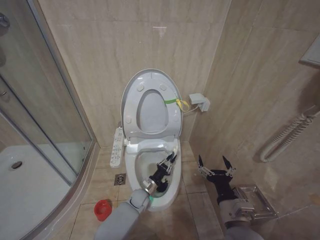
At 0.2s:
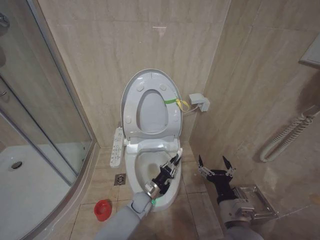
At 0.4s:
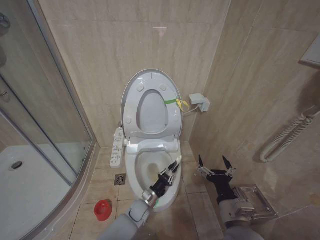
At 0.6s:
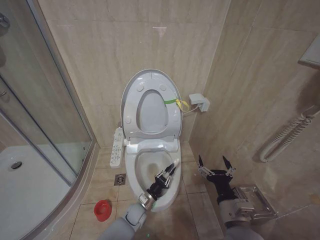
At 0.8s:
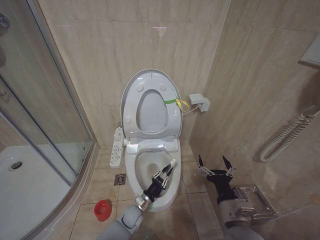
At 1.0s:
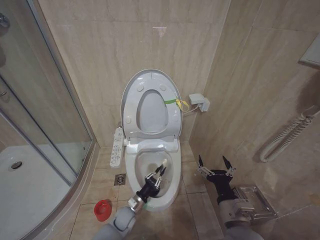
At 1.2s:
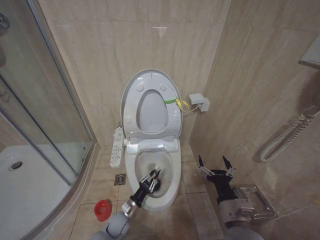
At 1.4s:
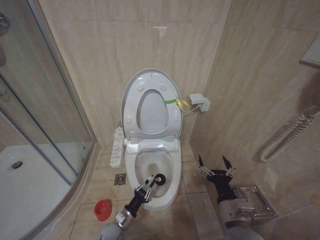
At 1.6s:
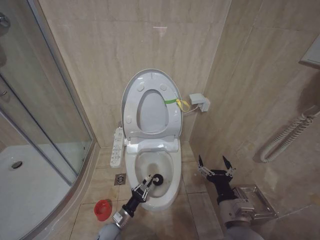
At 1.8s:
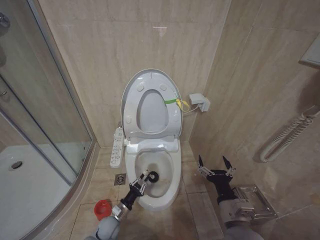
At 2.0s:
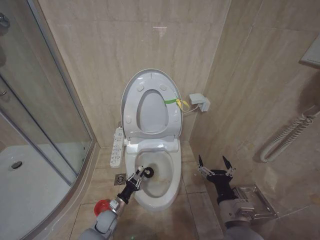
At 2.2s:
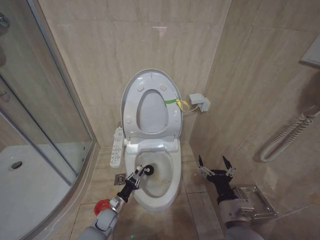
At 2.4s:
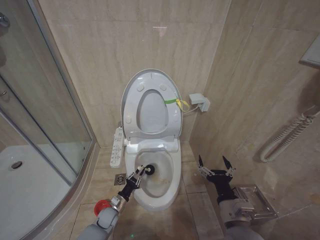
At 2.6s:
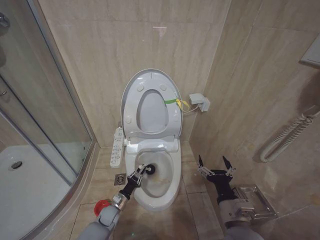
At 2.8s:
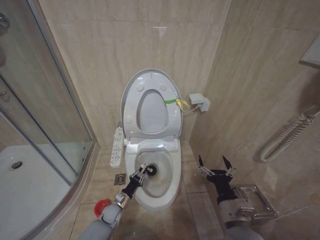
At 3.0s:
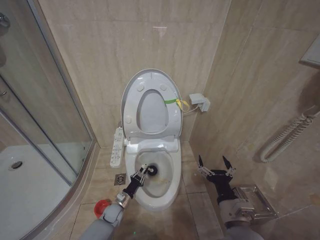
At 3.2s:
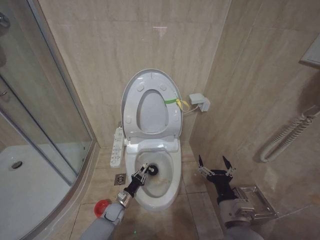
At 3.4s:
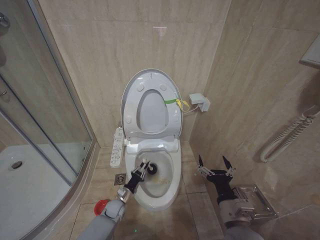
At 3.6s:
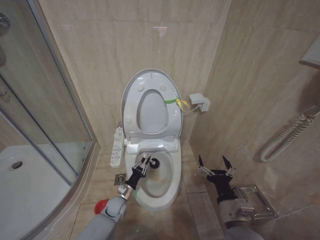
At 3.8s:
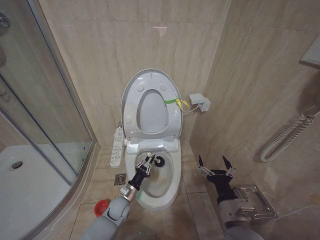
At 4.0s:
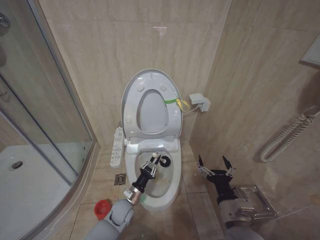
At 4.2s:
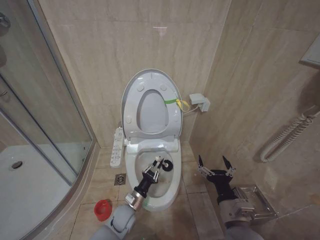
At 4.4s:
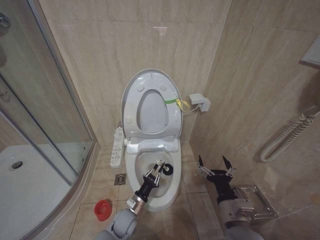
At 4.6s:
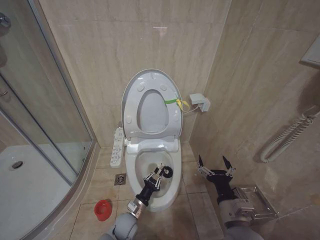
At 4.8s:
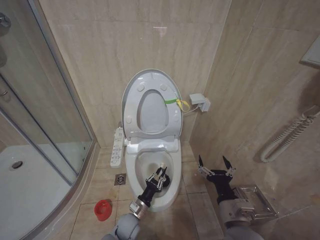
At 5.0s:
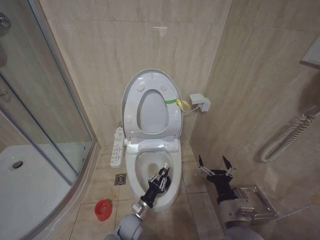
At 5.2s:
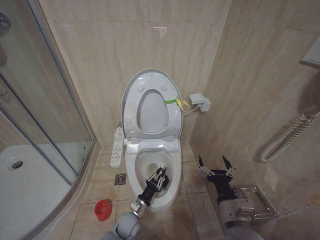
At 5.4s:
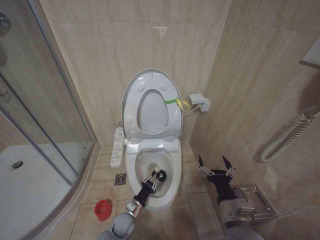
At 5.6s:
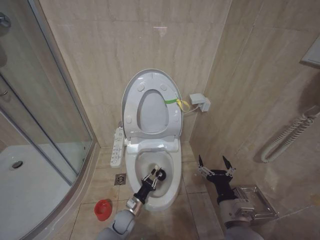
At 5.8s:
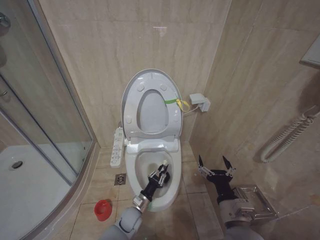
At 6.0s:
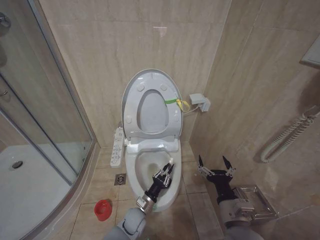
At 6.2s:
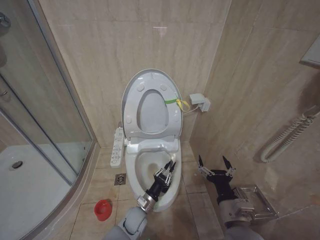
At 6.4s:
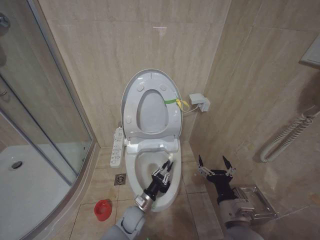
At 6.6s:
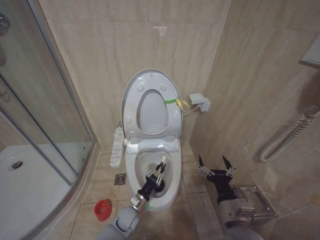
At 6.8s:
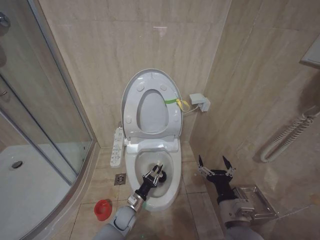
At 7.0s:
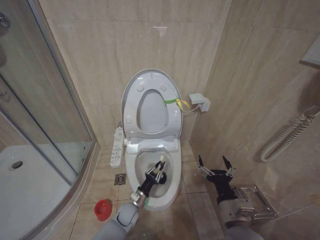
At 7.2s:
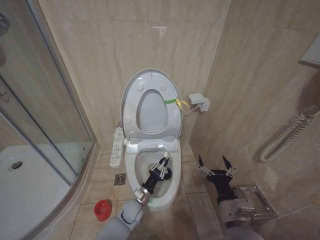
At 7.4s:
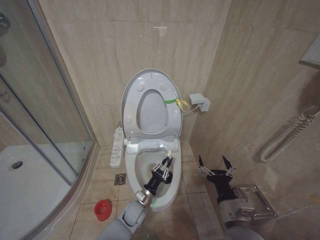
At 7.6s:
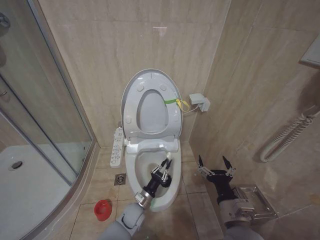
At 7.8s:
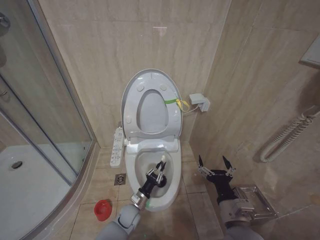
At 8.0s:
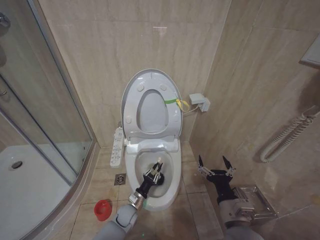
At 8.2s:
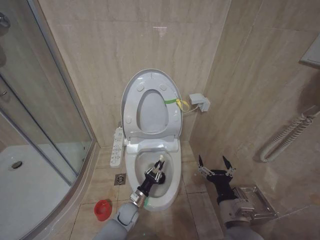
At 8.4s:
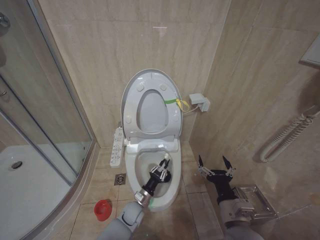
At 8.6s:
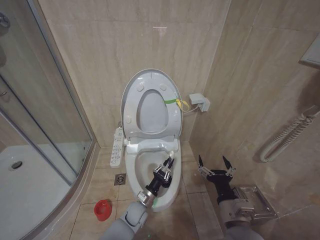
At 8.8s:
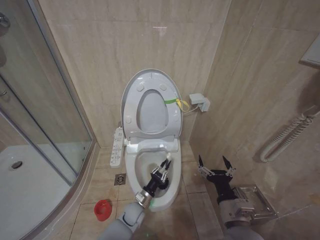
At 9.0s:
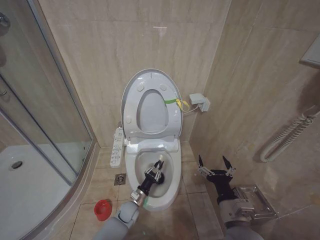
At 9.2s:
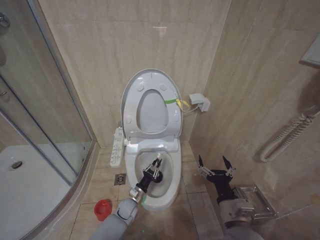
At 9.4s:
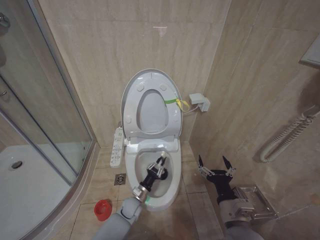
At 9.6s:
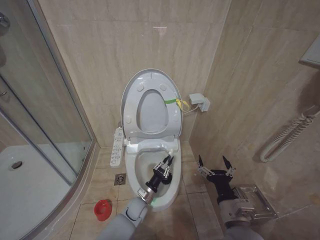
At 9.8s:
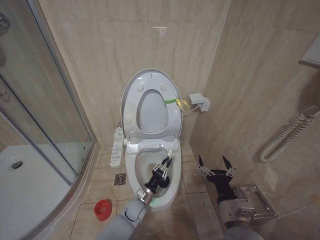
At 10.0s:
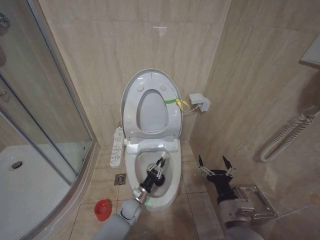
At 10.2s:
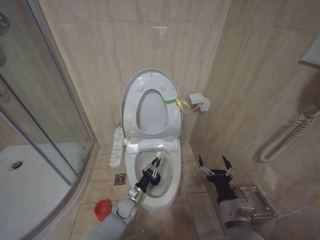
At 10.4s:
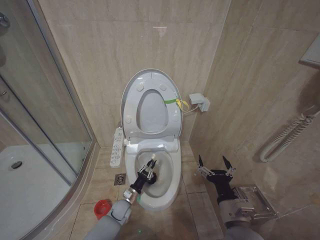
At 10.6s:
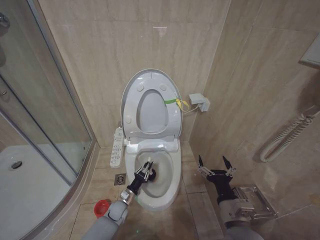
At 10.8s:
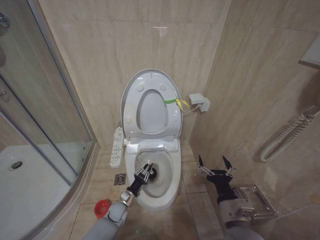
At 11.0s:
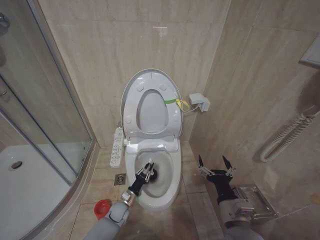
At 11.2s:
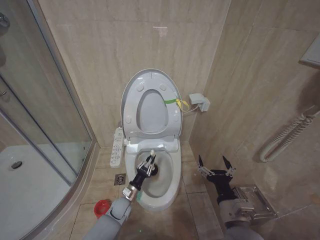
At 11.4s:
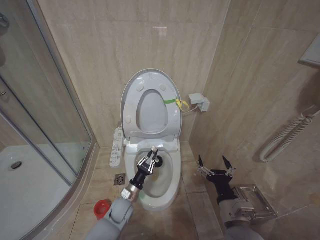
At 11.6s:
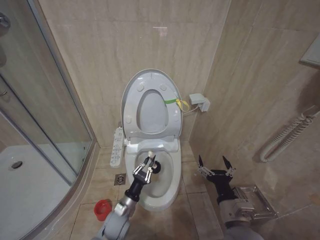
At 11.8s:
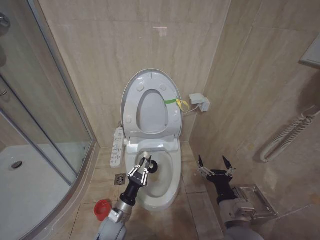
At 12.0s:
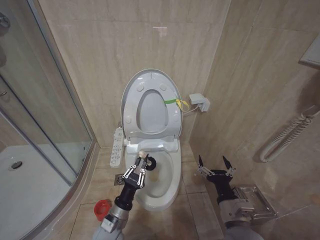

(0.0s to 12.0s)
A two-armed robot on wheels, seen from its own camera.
Task of the whole recording: Open the toilet lid, clean the toilet bowl with a toilet brush, close the toilet lid, and flush.
0.0s - 1.6s: The left gripper moves backward and to the left, approximately 15 cm.
1.6s - 3.0s: The left gripper shifts approximately 10 cm forward.
3.0s - 4.4s: The left gripper is displaced upward, to the right and backward by approximately 15 cm.
6.0s - 7.6s: The grippers move only a little.
7.6s - 9.0s: The left gripper changes place by about 5 cm.
9.0s - 10.4s: The grippers move only a little.
10.4s - 12.0s: The left gripper heads upward and backward, covering roughly 15 cm.

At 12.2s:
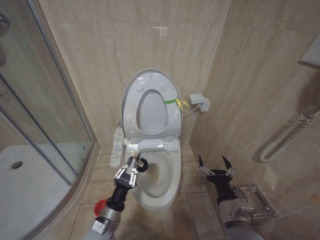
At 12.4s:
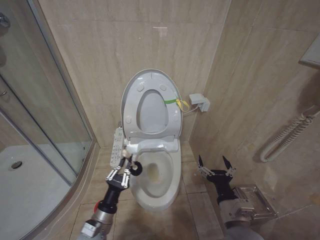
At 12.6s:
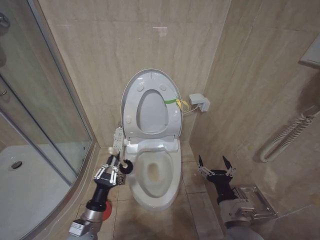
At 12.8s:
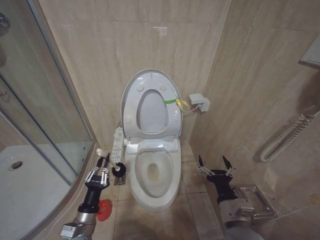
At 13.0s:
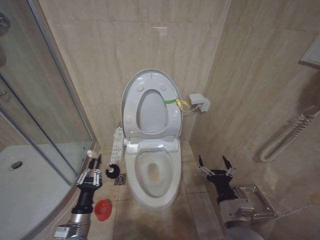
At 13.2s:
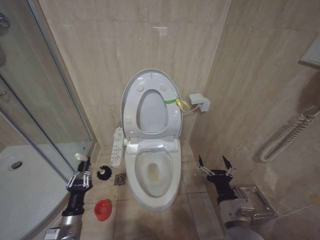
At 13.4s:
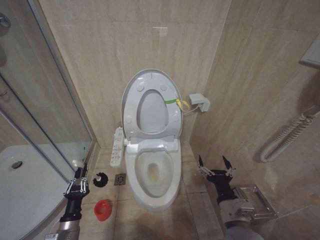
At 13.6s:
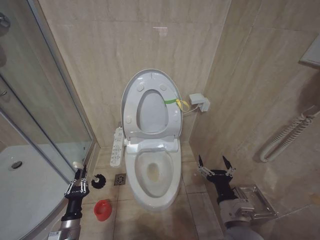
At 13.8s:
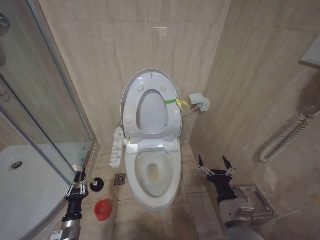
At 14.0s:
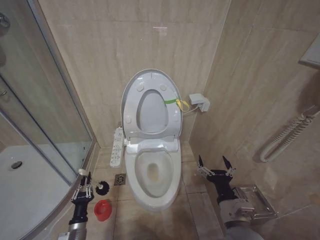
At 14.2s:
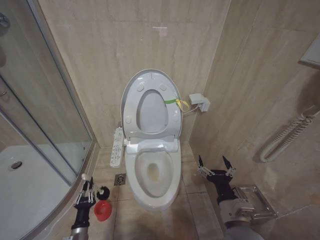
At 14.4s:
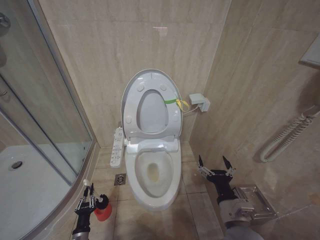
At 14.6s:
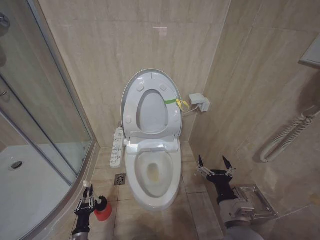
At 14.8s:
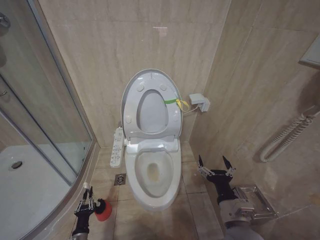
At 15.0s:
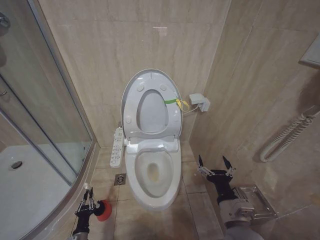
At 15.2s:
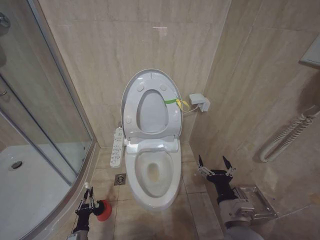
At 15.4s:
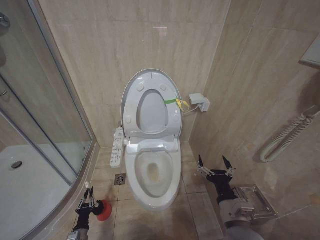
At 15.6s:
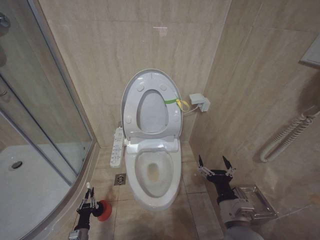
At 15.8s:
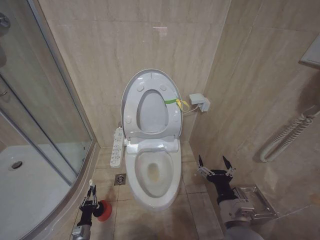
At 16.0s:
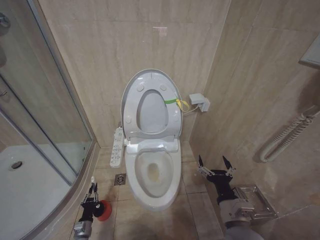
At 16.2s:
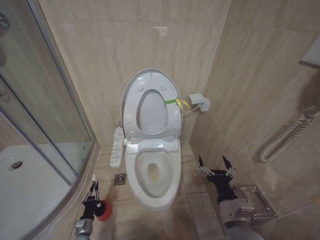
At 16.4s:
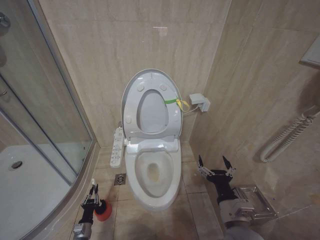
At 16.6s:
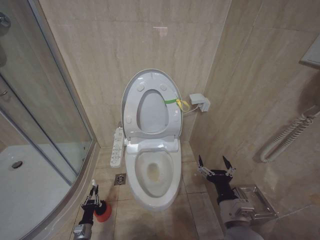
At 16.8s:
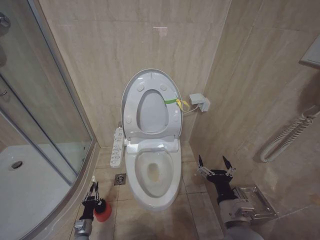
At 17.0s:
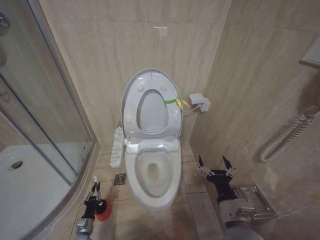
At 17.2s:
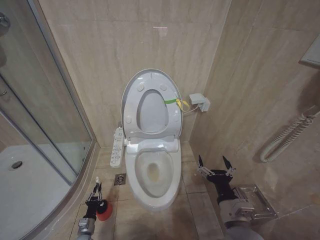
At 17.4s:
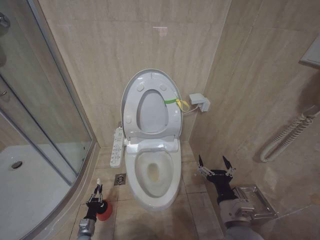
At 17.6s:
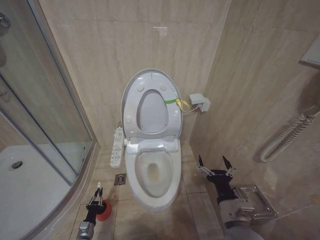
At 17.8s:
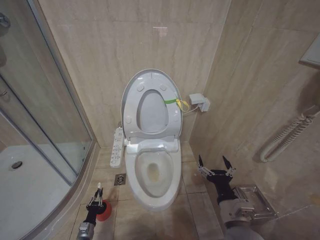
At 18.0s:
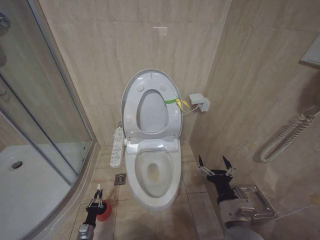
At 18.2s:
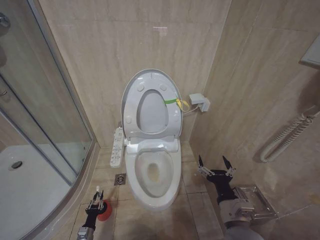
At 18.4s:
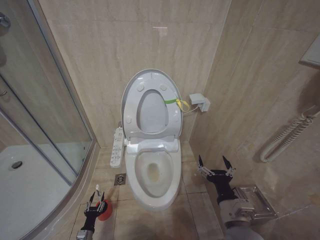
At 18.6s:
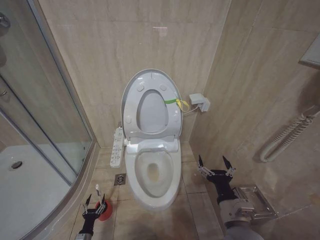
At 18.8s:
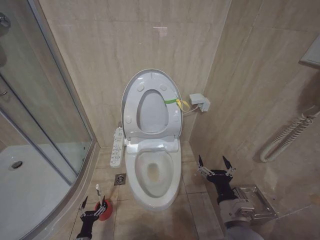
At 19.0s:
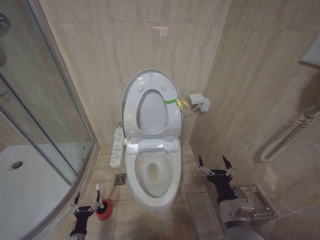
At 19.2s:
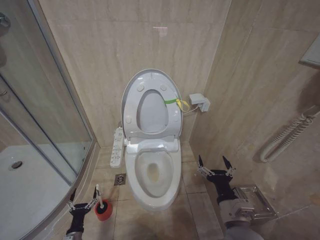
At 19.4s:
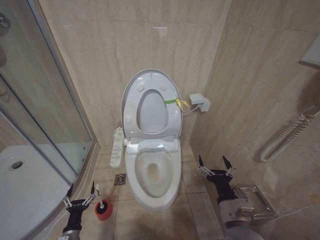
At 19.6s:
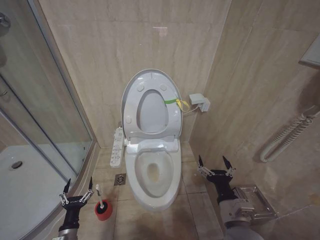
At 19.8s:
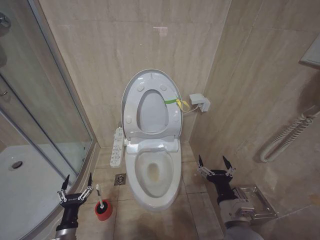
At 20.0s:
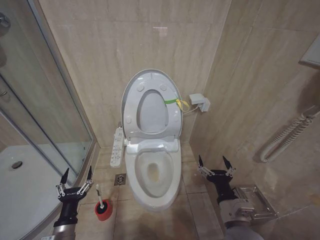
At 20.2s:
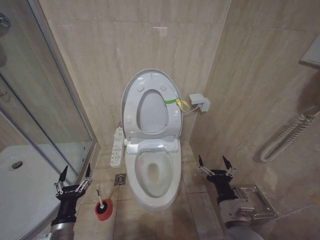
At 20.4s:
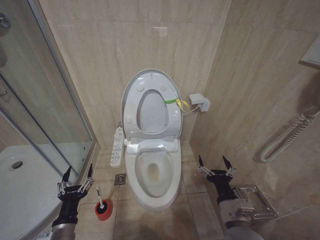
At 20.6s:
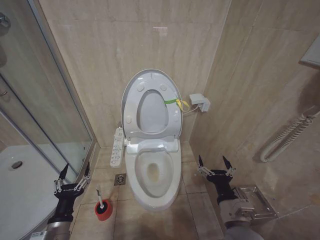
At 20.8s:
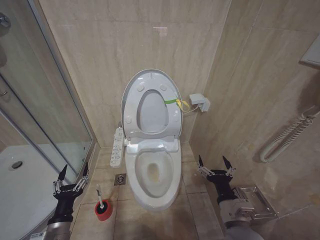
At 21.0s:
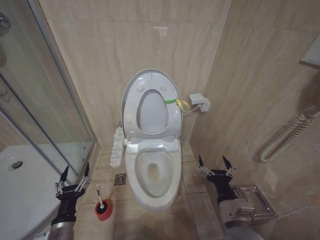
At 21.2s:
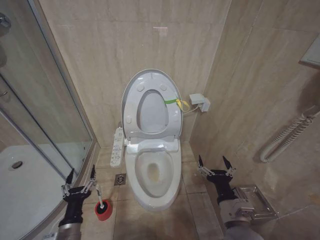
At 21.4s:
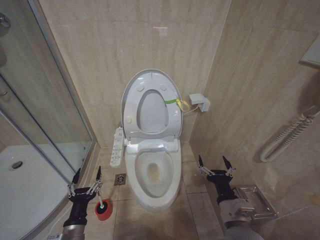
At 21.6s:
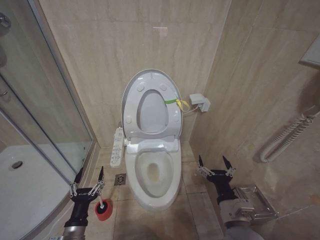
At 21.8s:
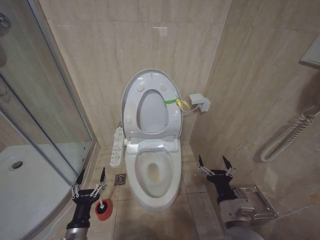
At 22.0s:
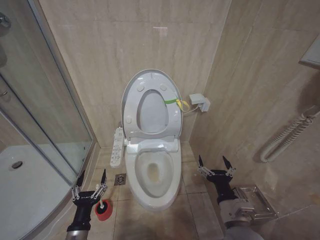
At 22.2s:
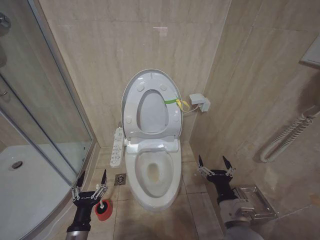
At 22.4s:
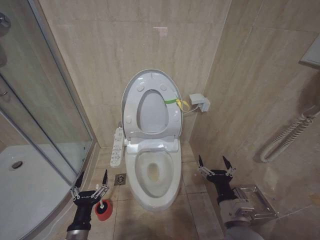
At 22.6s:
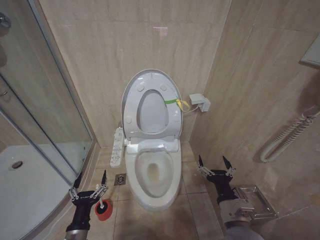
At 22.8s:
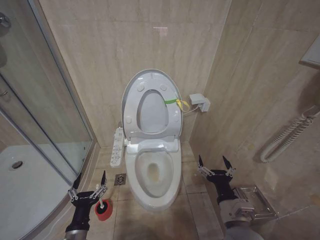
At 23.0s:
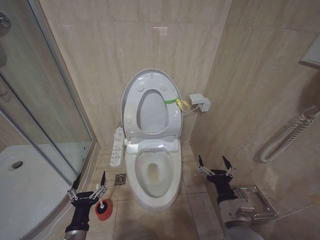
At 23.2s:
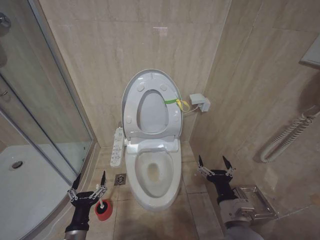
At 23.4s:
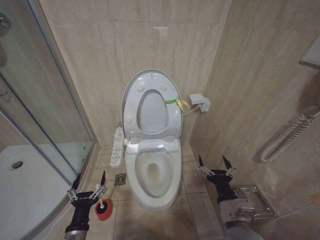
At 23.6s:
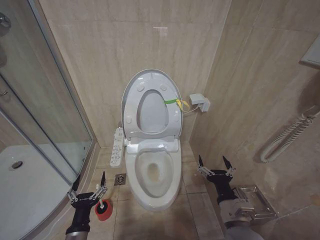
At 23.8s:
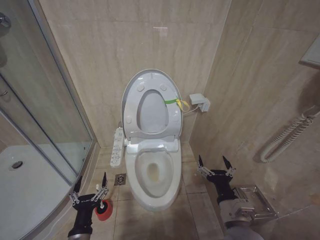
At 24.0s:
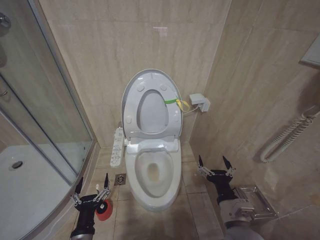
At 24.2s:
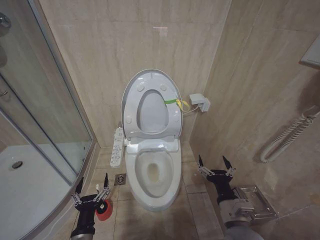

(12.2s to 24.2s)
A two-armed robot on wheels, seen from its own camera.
Task of the whole recording: Open the toilet lid, clean the toilet bowl with a toilet brush, close the toilet lid, and flush.
12.2s - 13.8s: The left gripper shifts some 15 cm to the left and downward.
13.8s - 15.2s: The left gripper shifts about 15 cm downward.
18.2s - 19.8s: The left gripper goes approximately 20 cm upward, and opens up.
19.8s - 21.2s: The left gripper heads upward, covering some 10 cm.
21.2s - 22.6s: The grippers make only small movements.
22.6s - 24.2s: The grippers make only small movements.
